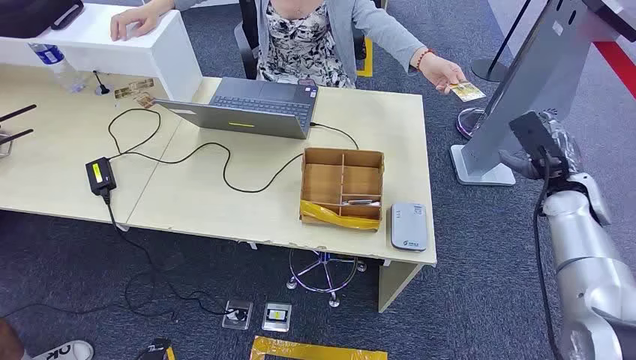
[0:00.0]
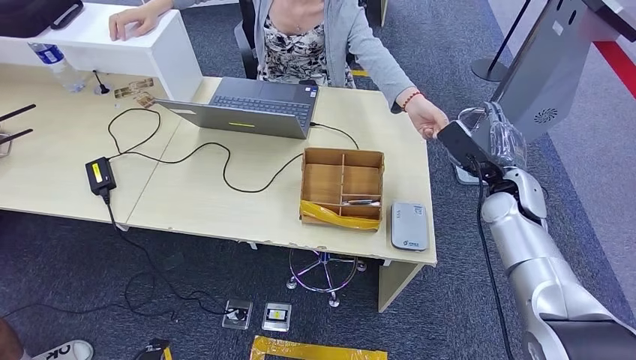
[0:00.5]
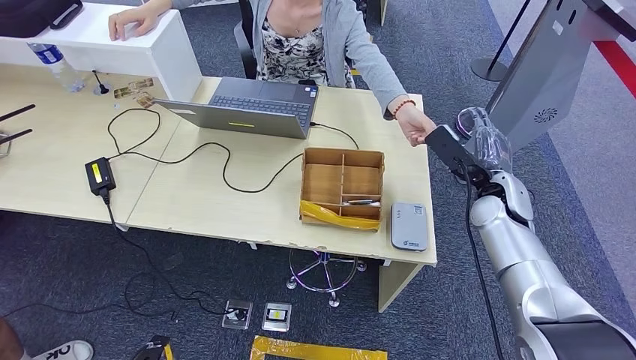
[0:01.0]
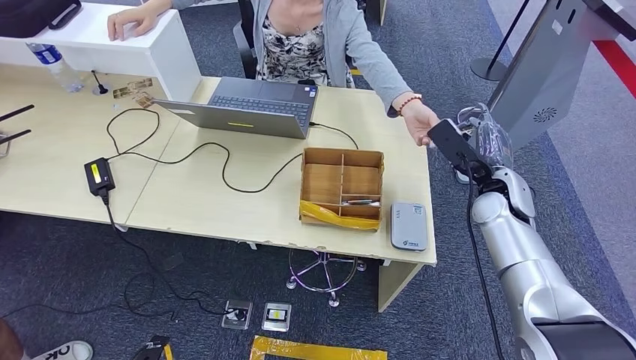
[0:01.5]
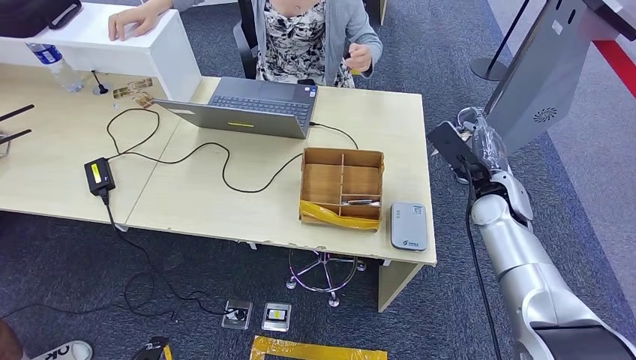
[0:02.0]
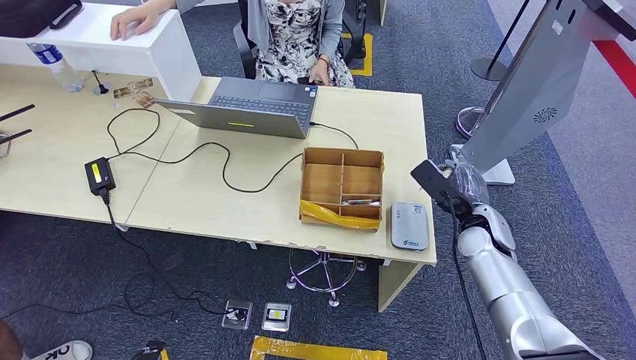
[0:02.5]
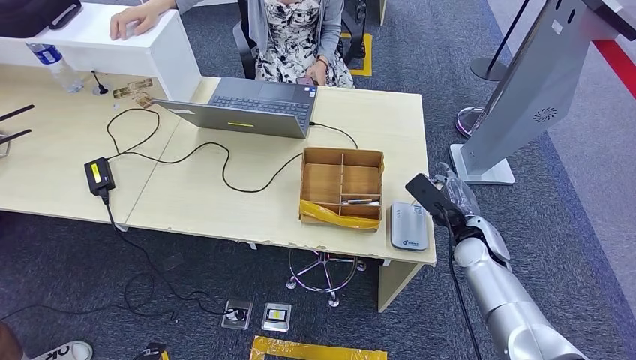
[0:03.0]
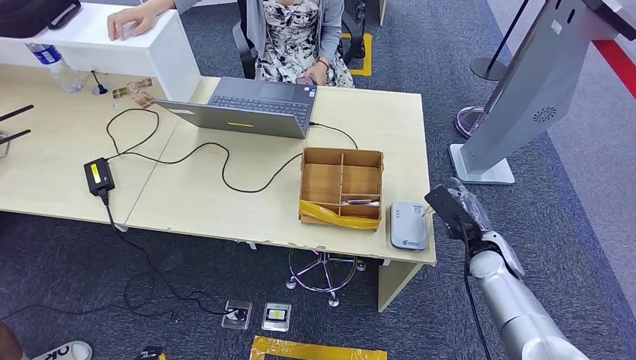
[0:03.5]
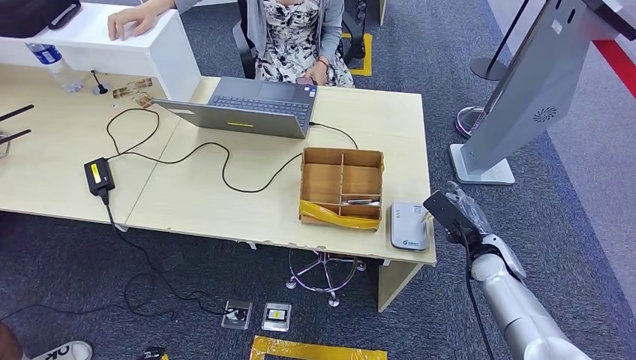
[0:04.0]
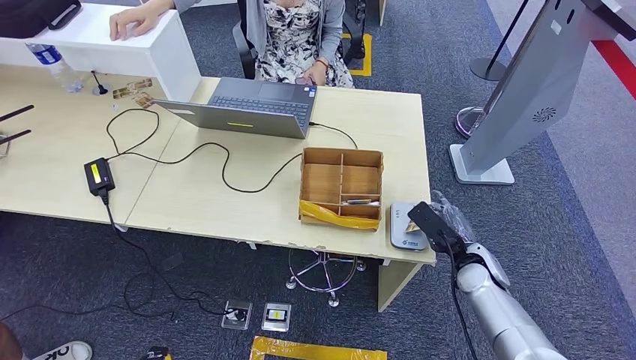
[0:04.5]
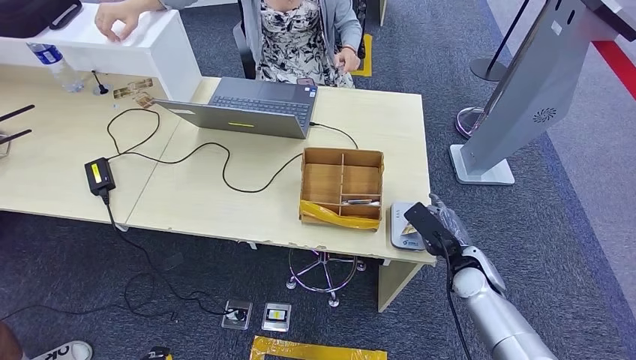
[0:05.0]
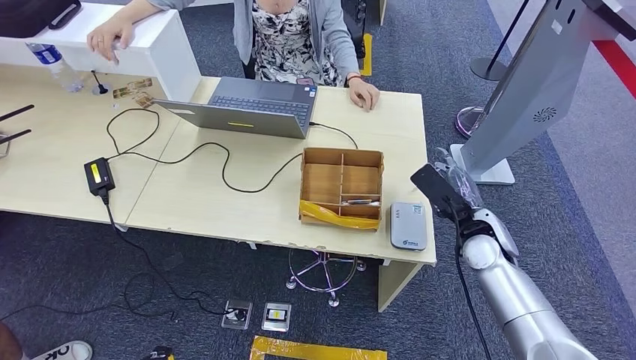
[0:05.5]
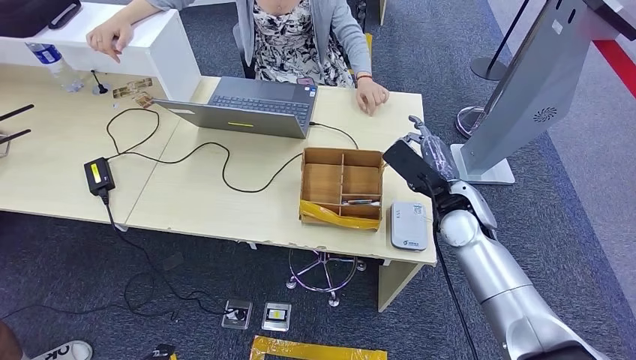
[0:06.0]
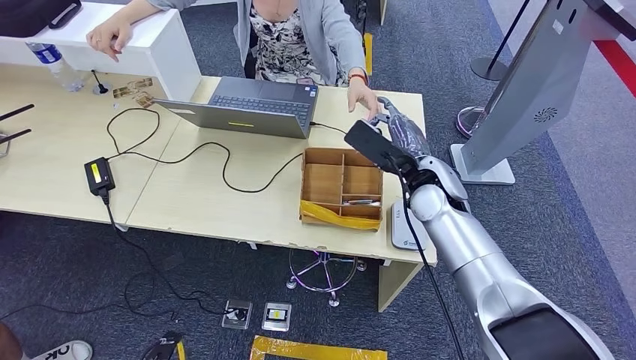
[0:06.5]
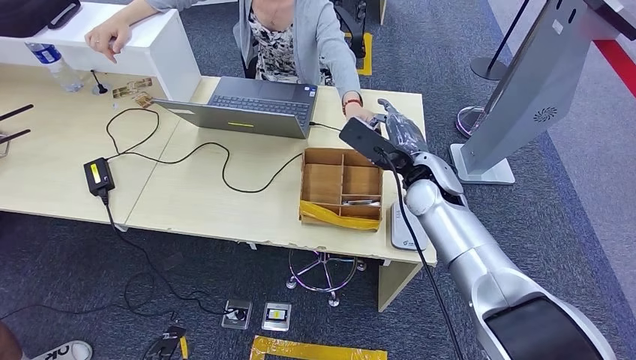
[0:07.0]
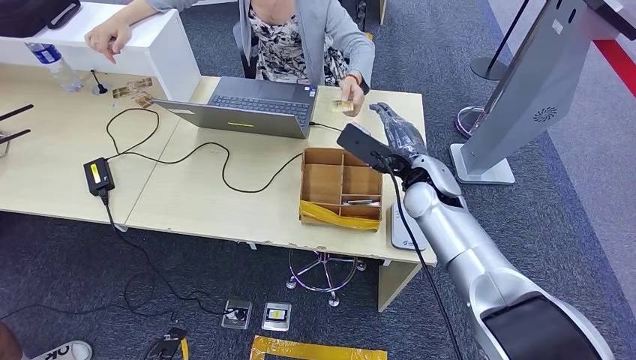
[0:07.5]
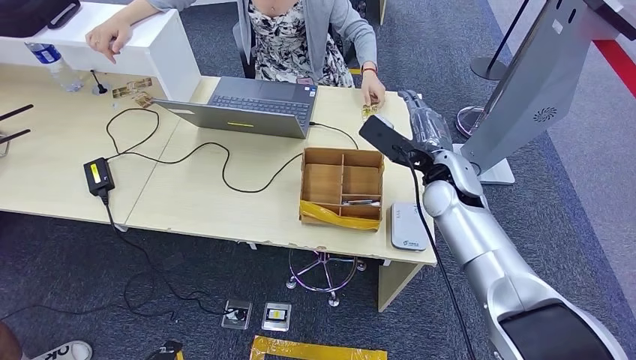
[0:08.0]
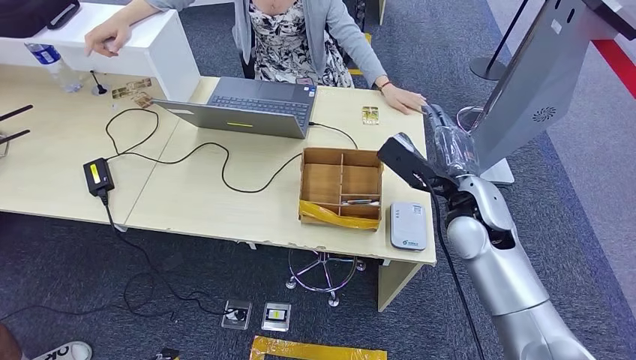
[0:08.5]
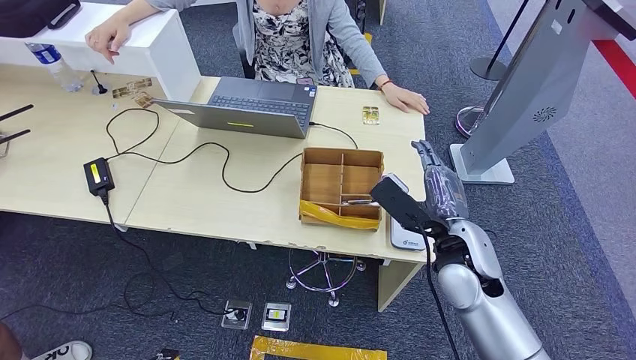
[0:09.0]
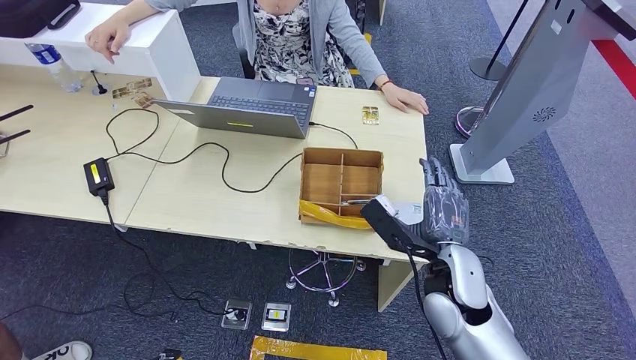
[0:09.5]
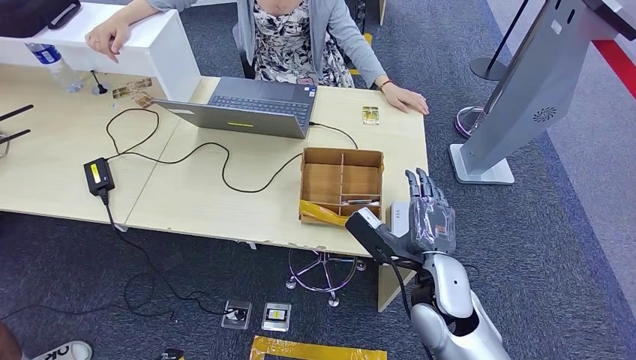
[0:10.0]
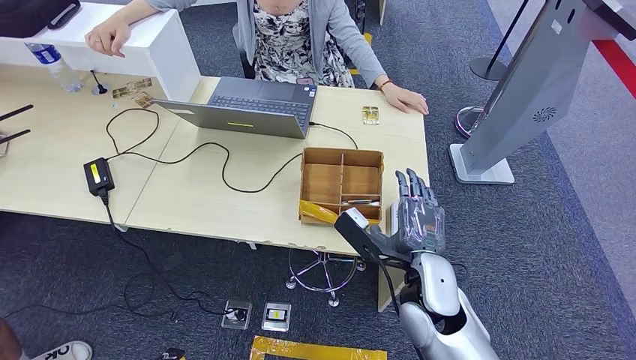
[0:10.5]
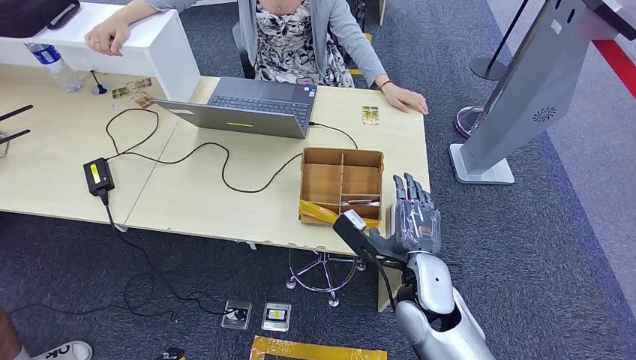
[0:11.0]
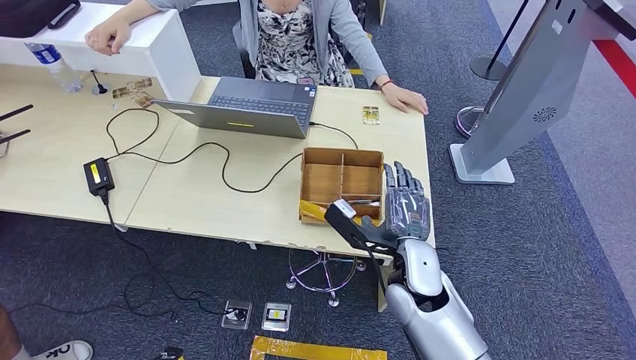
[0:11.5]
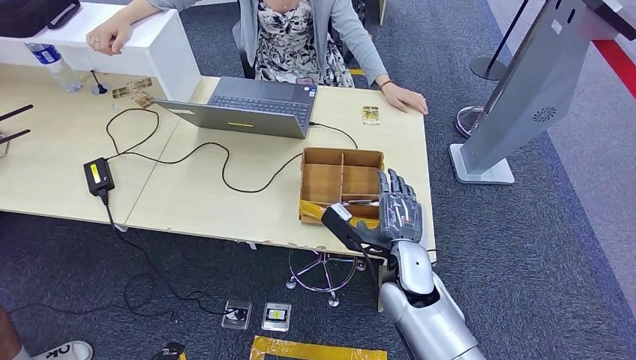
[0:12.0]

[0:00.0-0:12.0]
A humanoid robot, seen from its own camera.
Step, 0:00.0 to 0:03.5: Take the ID card from the person's hand.
Step, 0:04.0 to 0:06.0: Place the ID card on the card reader.
Step, 0:07.0 to 0:10.5: Hand the ID card to the person.
0:02.0 to 0:04.0: The right hand goes some 15 cm downward and backward.
0:04.0 to 0:06.0: The right hand is displaced to the left and upward by about 15 cm.
0:06.0 to 0:08.0: The right hand shifts by about 5 cm.
0:08.0 to 0:10.0: The right hand moves backward and downward, about 20 cm.
0:10.0 to 0:12.0: The right hand changes place by some 5 cm.

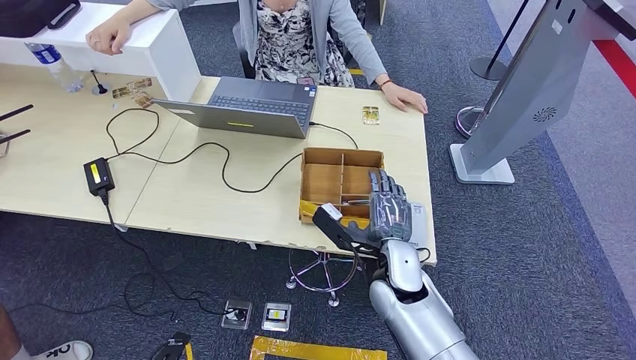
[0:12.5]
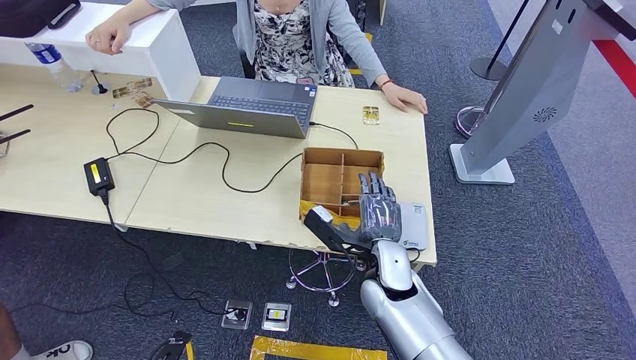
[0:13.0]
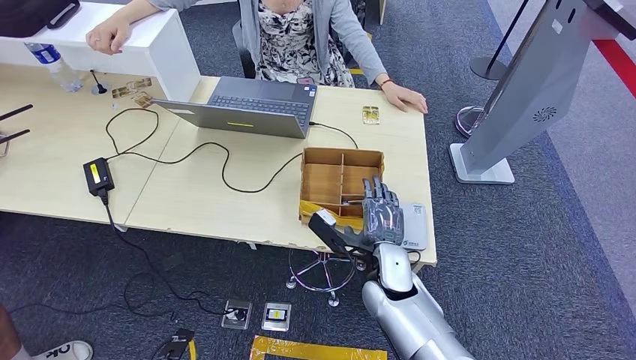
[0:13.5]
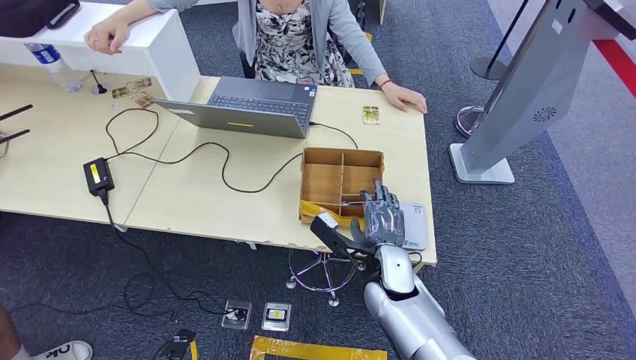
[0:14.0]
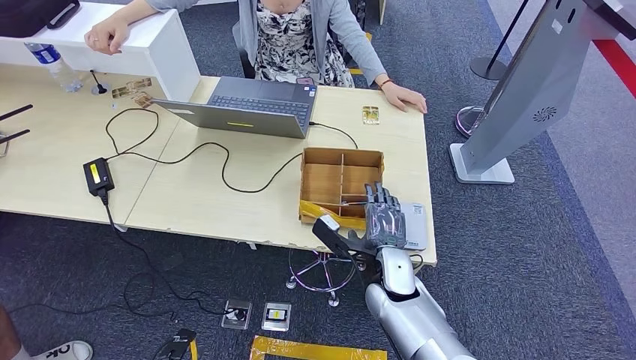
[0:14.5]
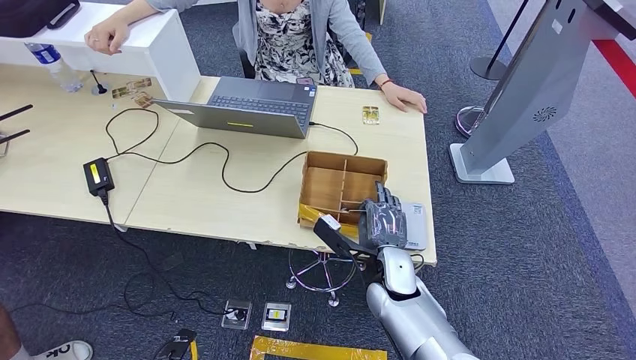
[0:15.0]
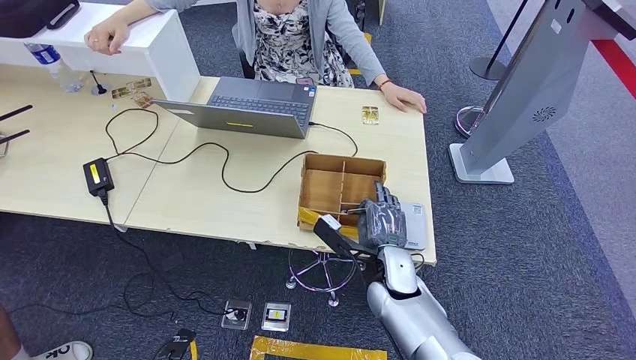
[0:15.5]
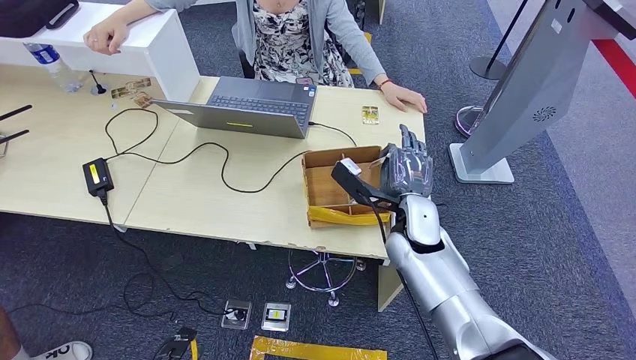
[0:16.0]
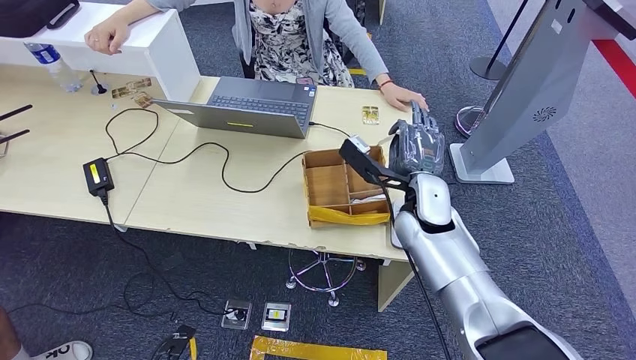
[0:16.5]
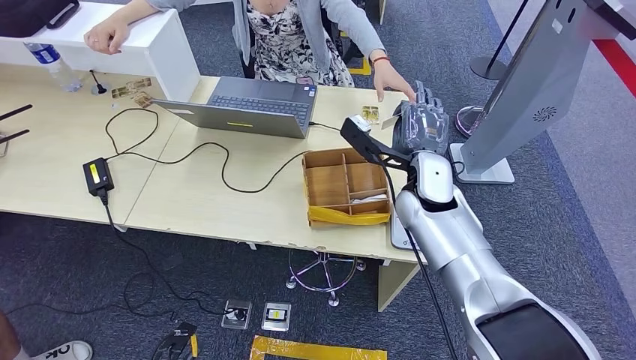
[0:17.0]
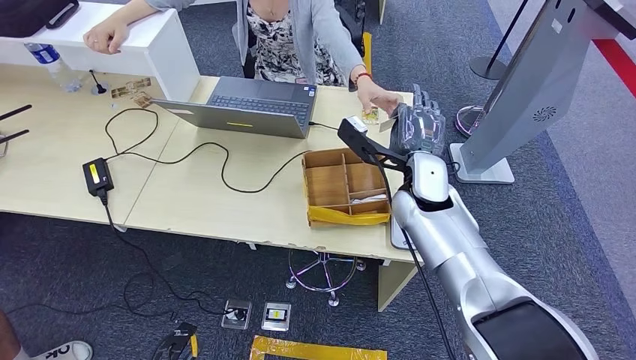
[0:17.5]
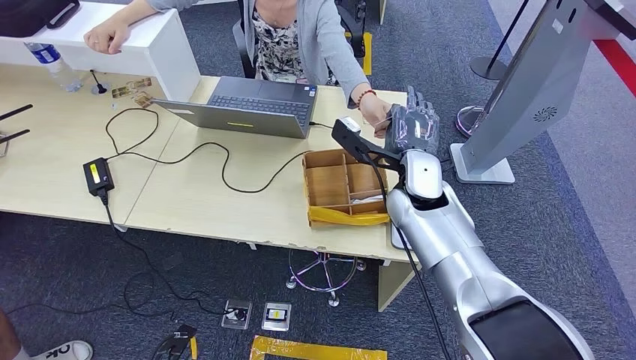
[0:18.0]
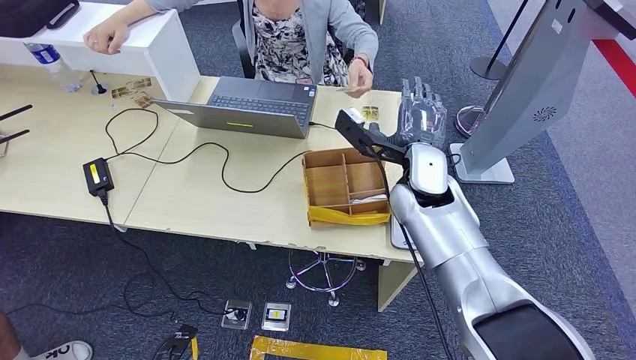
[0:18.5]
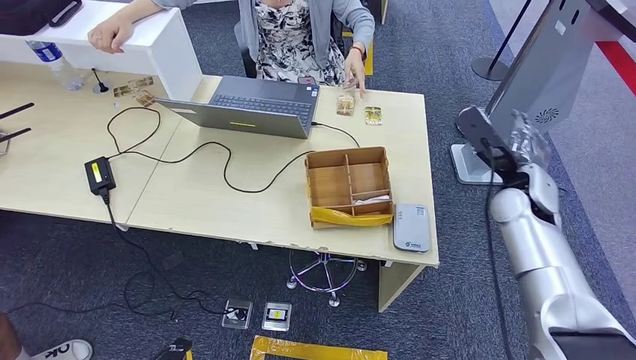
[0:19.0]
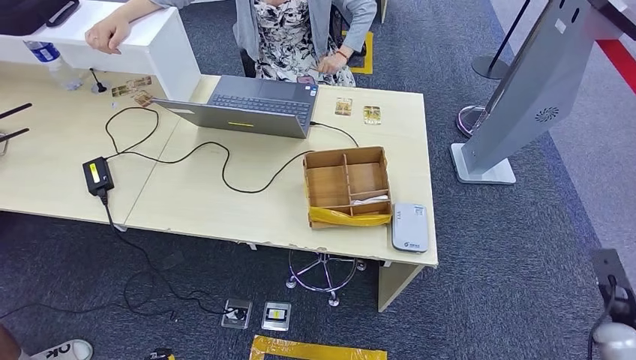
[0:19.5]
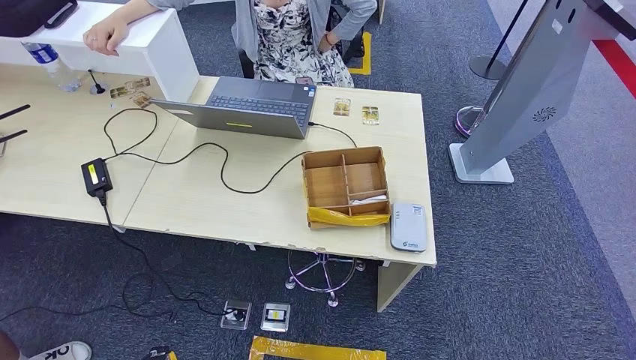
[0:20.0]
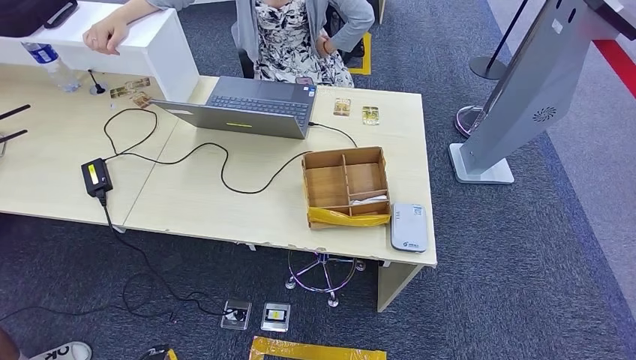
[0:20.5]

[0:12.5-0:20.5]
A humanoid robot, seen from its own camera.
Step, 0:12.5 to 0:16.5: Pick up the room key from the key card box.
Step, 0:17.0 to 0:20.5: Hand the room key to the person.
0:12.5 to 0:14.5: There are only small adjustments of the hands.
0:14.5 to 0:16.5: The right hand travels upward and forward by roughly 15 cm.
0:16.5 to 0:18.5: The right hand is displaced upward by approximately 5 cm.
0:18.5 to 0:20.5: The right hand heads backward, to the right and downward, covering approximately 60 cm.
